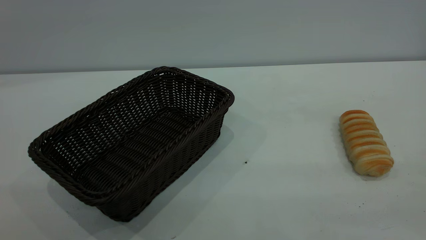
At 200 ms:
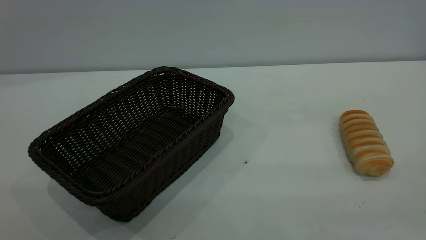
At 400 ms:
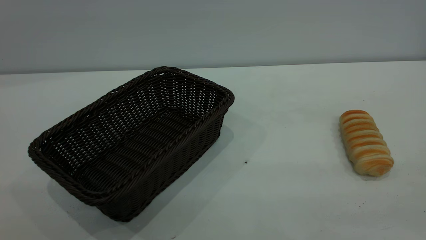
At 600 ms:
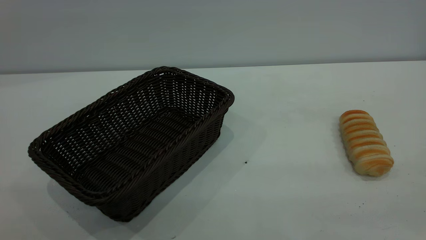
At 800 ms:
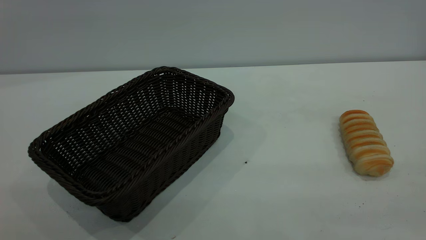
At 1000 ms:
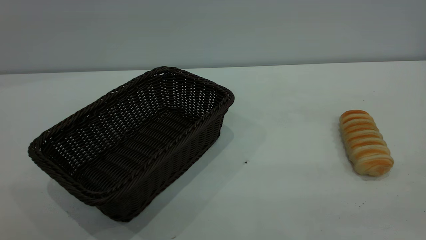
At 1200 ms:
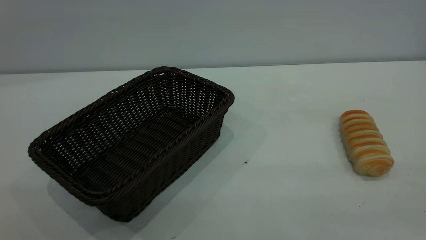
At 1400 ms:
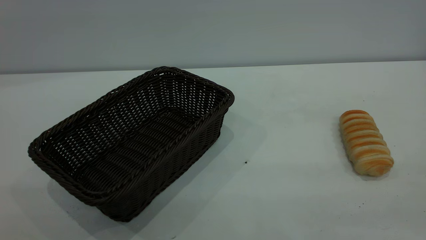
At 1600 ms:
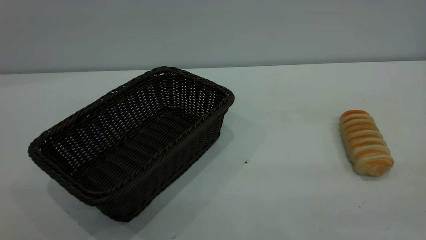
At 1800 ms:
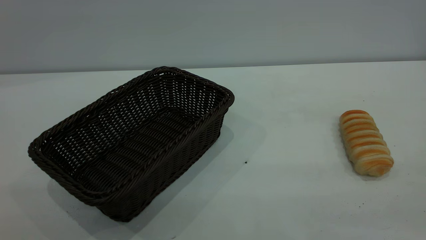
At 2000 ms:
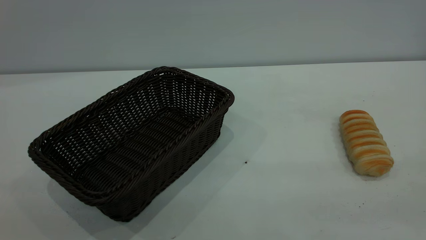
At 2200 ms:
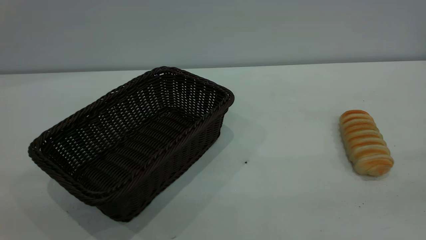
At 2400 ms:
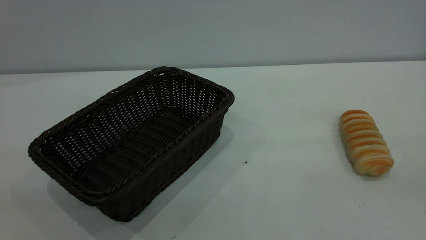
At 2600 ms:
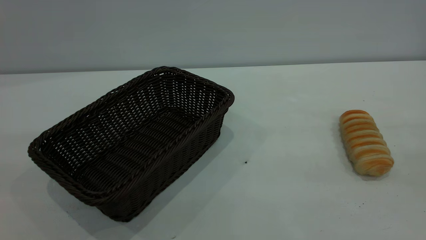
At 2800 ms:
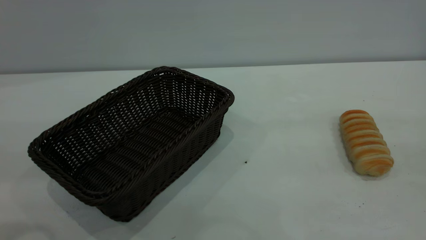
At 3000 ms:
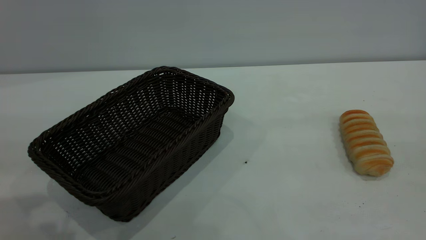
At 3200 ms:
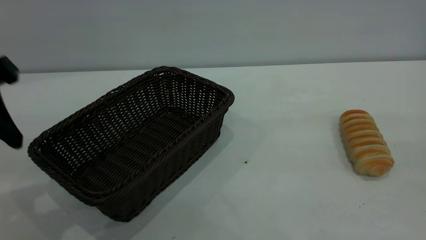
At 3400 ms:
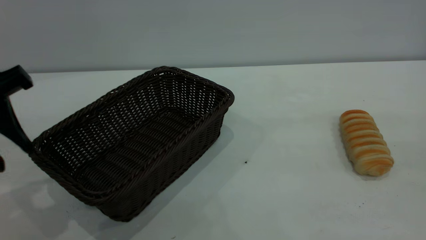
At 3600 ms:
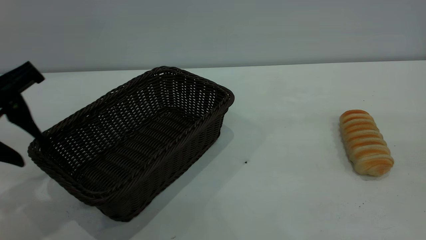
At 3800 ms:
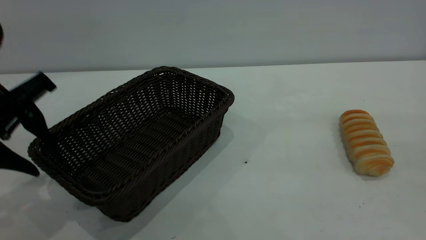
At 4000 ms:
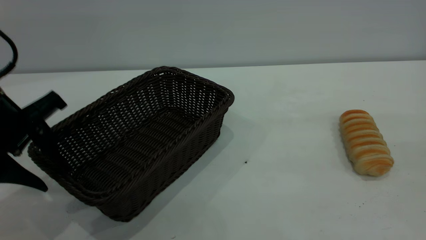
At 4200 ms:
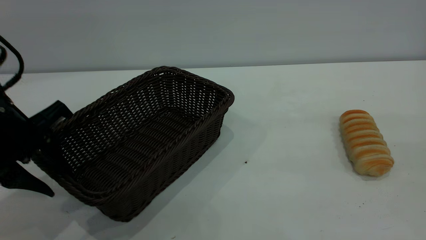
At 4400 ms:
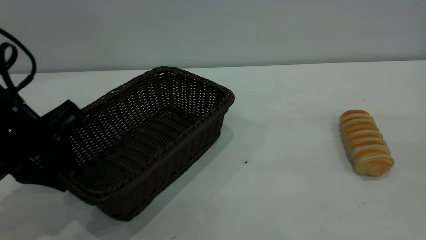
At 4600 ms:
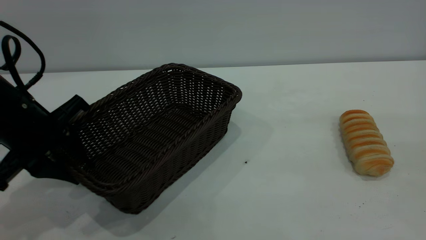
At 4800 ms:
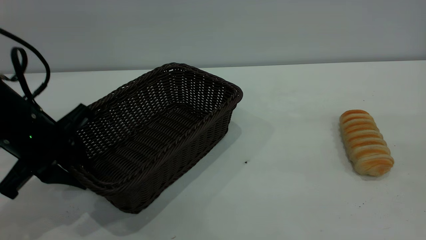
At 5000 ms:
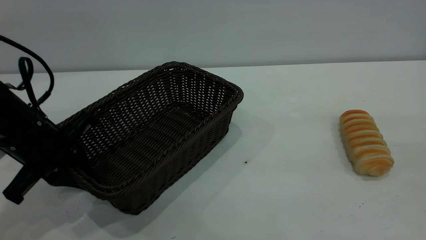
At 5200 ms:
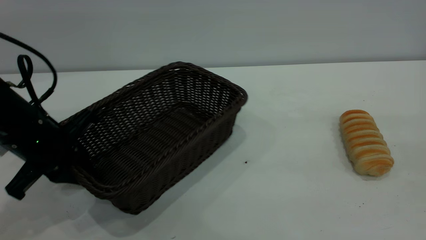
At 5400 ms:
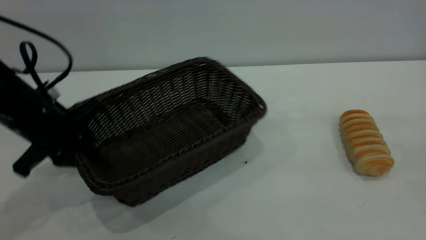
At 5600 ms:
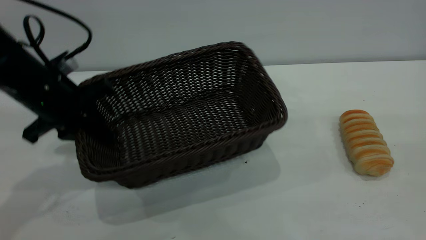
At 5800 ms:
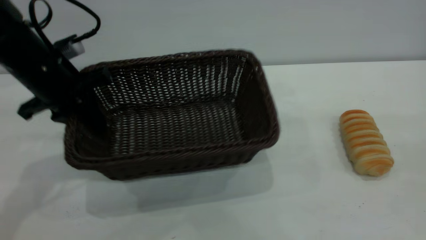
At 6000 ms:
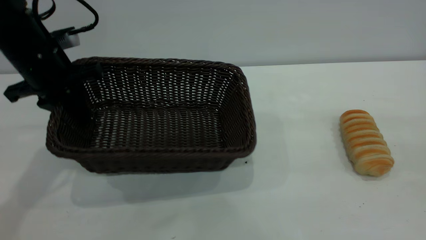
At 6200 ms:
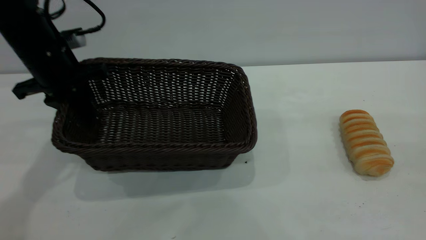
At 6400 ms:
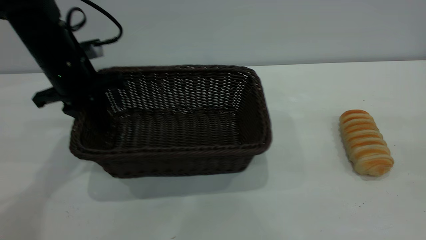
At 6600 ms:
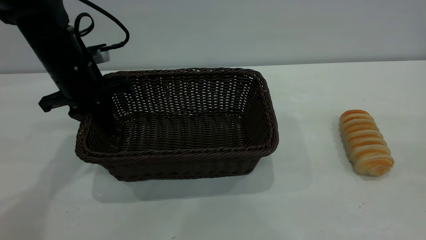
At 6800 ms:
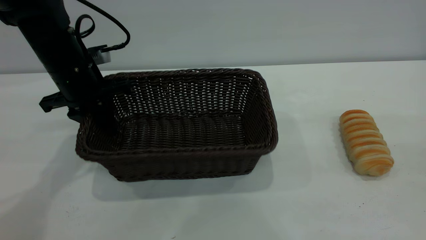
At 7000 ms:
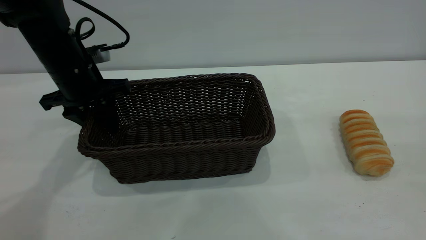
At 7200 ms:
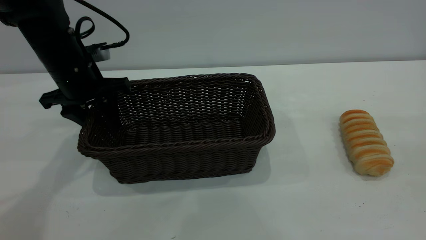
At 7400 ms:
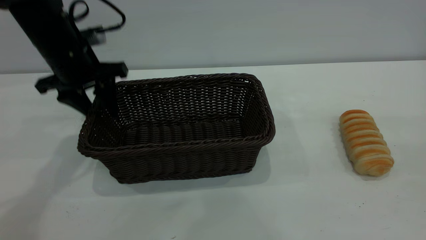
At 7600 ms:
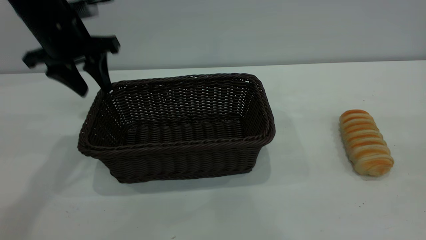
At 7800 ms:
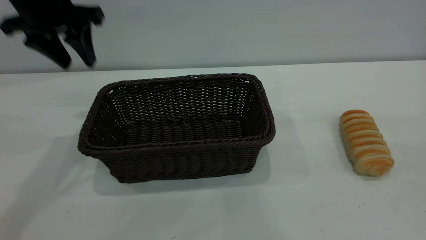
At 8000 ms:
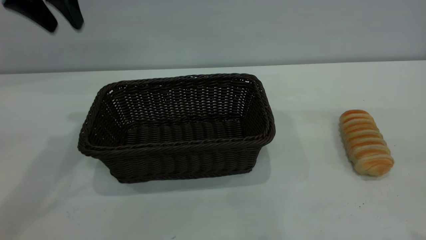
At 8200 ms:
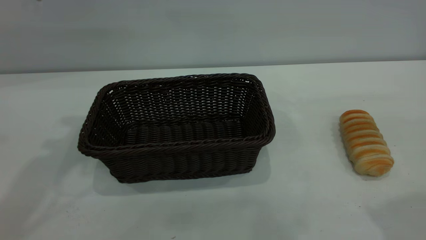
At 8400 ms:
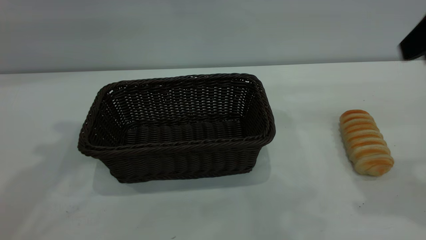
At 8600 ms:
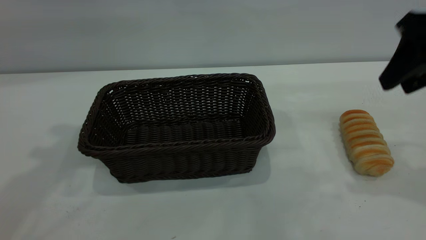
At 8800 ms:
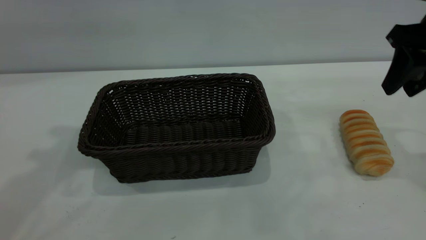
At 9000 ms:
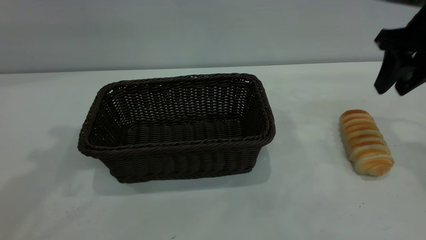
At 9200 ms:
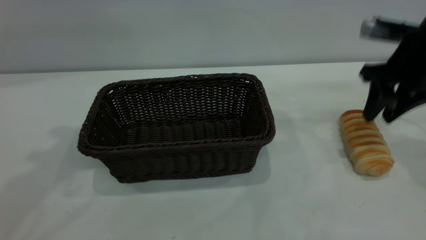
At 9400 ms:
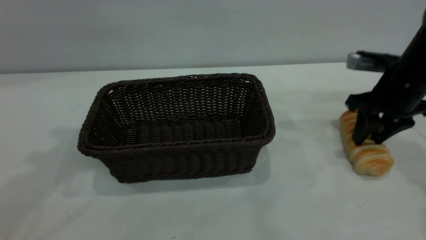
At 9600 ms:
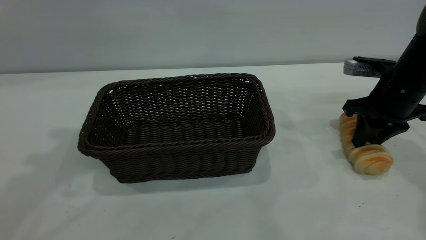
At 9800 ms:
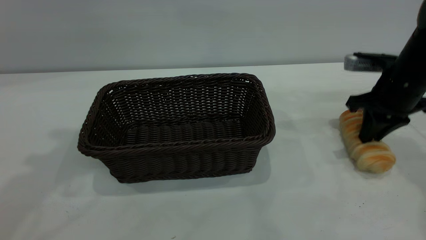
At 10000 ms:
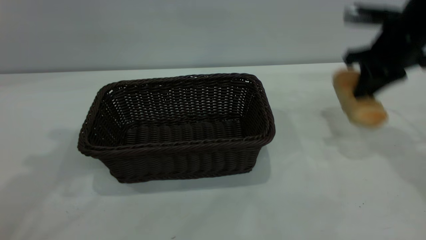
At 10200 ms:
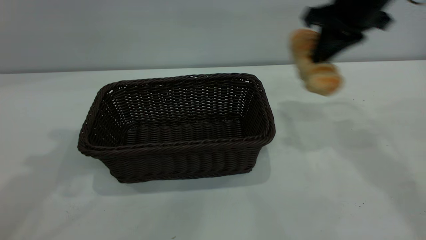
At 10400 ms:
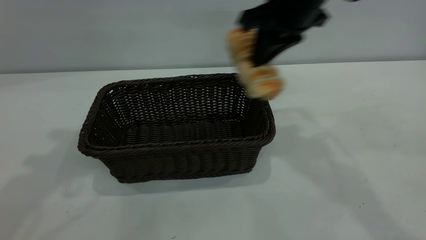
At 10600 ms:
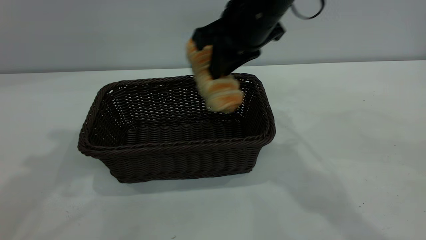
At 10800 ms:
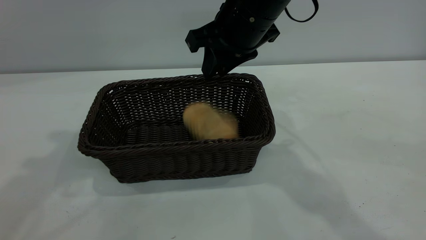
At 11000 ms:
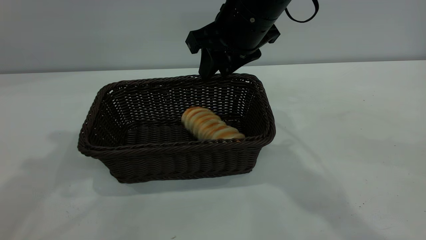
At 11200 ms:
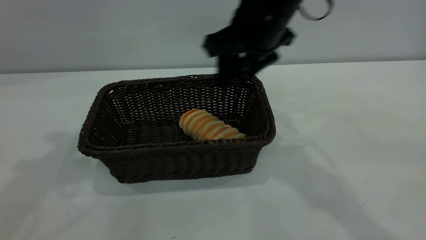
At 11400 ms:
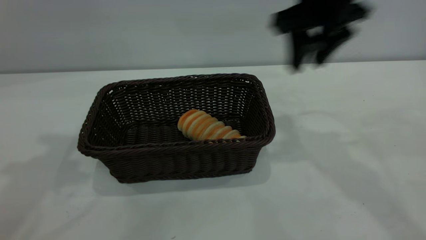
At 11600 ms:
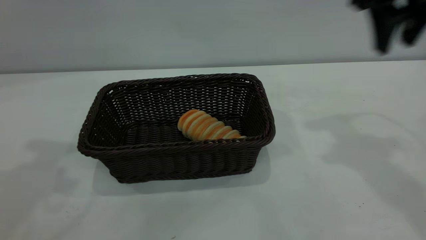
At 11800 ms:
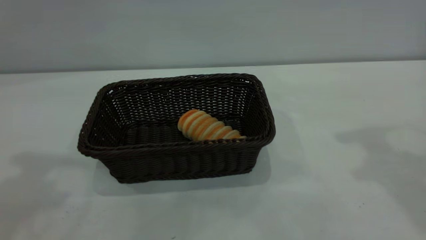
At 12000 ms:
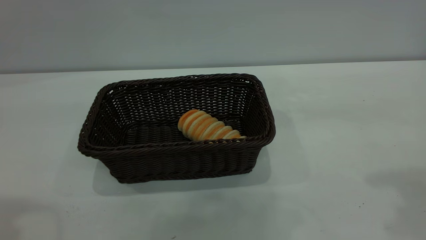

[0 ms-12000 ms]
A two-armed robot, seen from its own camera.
Task of the whole recording: One hand grasps the black basket and places it in the middle of the table, while the other hand picks up the long bread and puts it into the black basket.
Step, 0 ms to 7600 ms: Move the basket to the center of view.
Step, 10200 ms to 11200 ms: place the bread into the basket.
0 ms to 1600 ms: Both grippers stay about where they are.
3000 ms to 4400 ms: The left gripper moves downward and forward, some 15 cm.
4400 ms to 6000 ms: The left gripper shifts about 10 cm forward, and closes its fingers.
6000 ms to 7600 ms: The left gripper changes place by approximately 5 cm, and opens up.
7600 ms to 9000 ms: The left gripper heads upward and backward, covering approximately 20 cm, while the right gripper travels forward and downward by about 30 cm.
9000 ms to 10400 ms: The right gripper goes approximately 20 cm to the left, and closes.
10400 ms to 12000 ms: The right gripper goes about 30 cm to the right, backward and upward, and opens its fingers. The left gripper goes roughly 15 cm backward.
